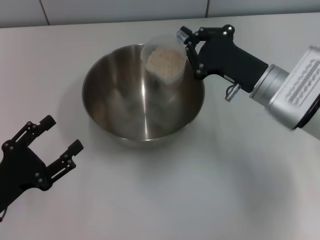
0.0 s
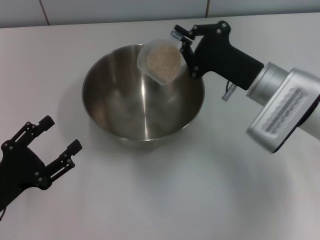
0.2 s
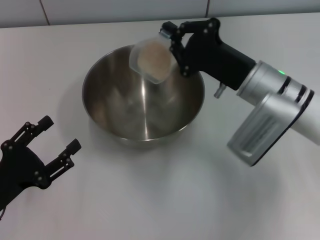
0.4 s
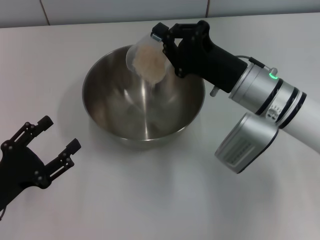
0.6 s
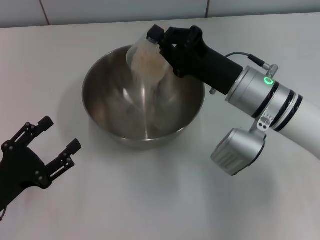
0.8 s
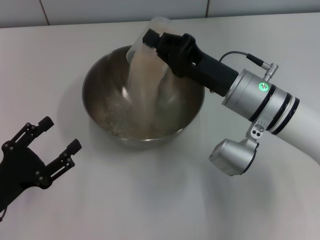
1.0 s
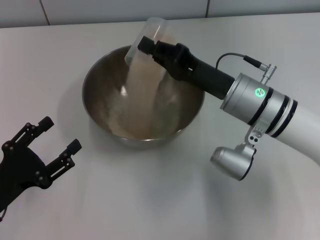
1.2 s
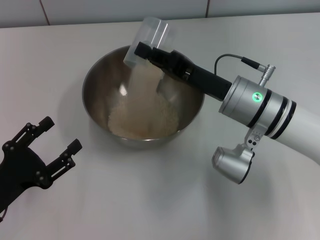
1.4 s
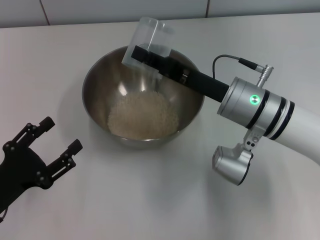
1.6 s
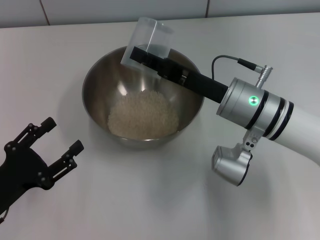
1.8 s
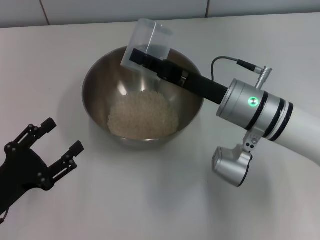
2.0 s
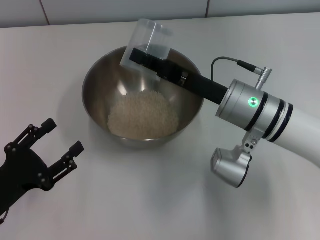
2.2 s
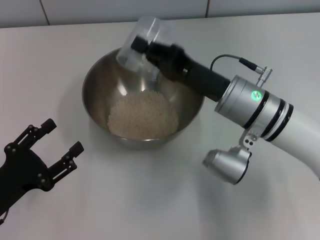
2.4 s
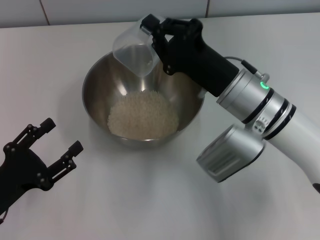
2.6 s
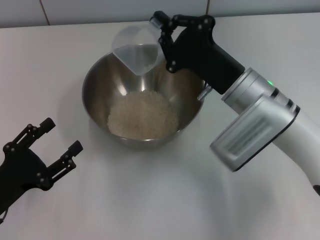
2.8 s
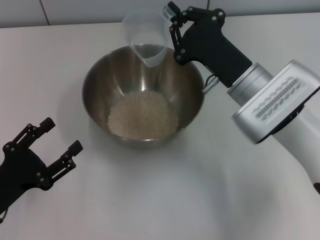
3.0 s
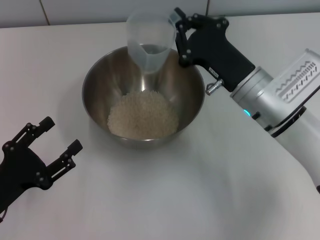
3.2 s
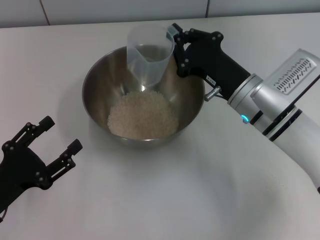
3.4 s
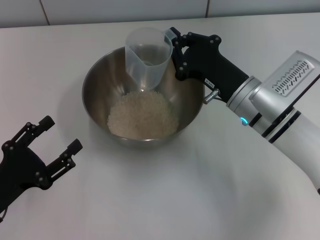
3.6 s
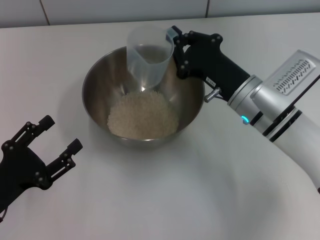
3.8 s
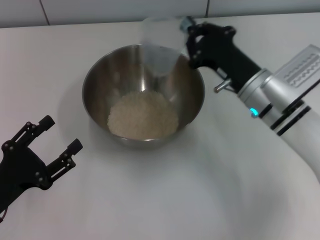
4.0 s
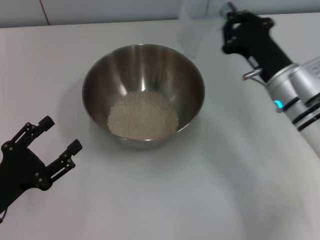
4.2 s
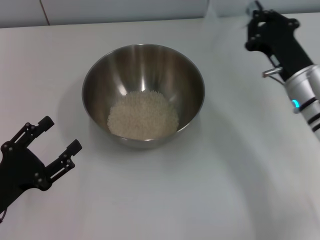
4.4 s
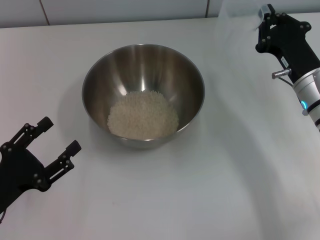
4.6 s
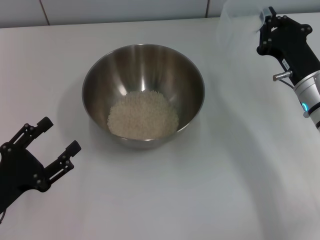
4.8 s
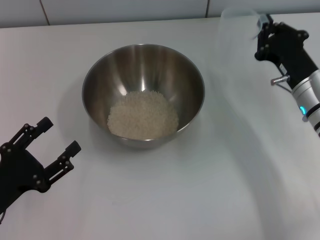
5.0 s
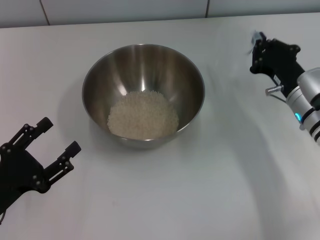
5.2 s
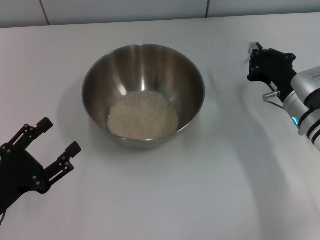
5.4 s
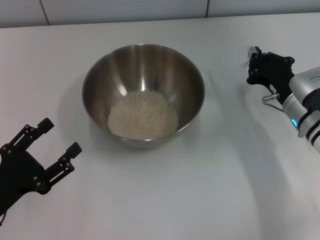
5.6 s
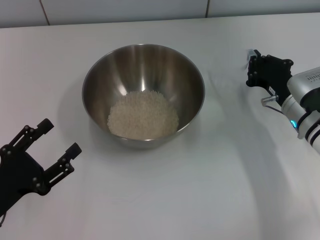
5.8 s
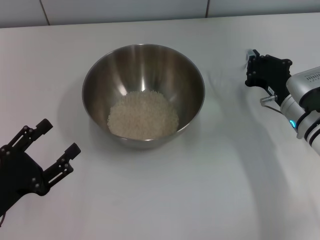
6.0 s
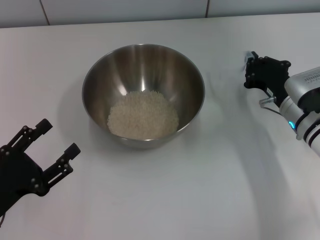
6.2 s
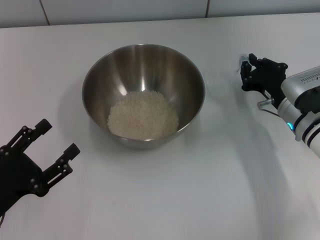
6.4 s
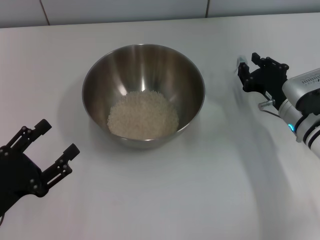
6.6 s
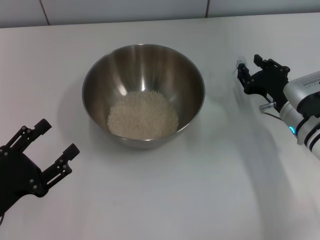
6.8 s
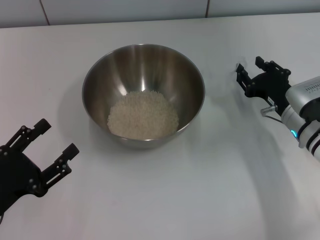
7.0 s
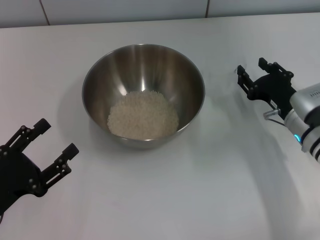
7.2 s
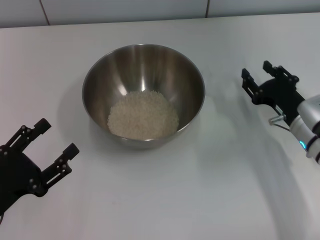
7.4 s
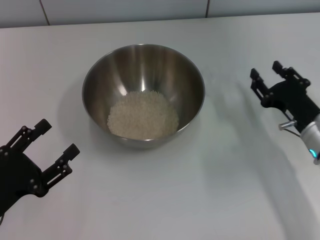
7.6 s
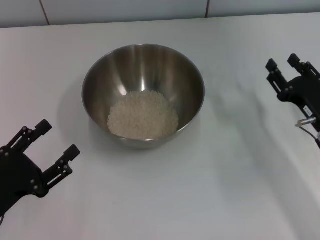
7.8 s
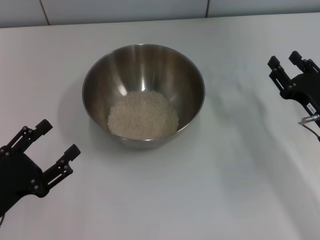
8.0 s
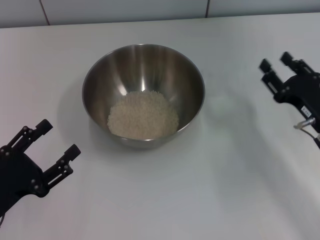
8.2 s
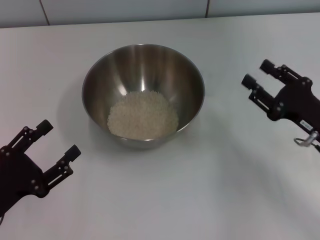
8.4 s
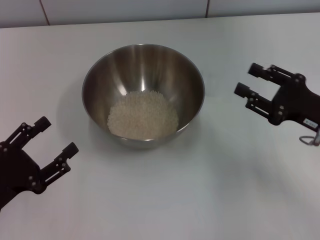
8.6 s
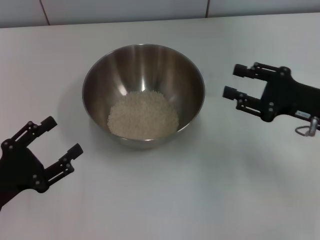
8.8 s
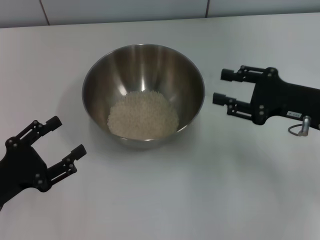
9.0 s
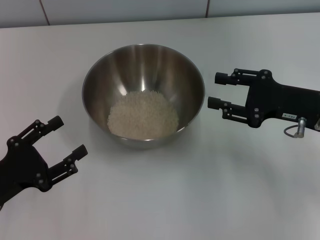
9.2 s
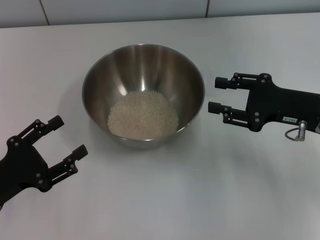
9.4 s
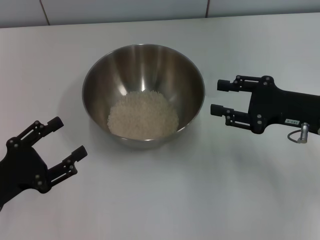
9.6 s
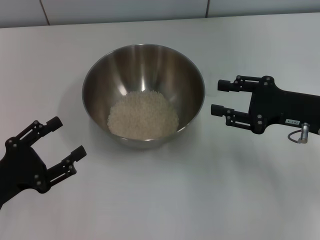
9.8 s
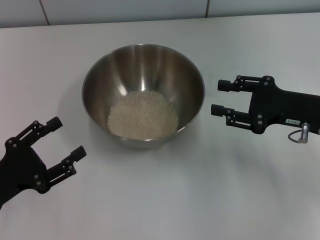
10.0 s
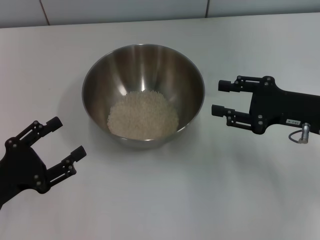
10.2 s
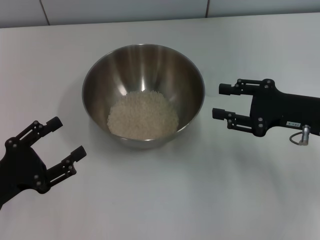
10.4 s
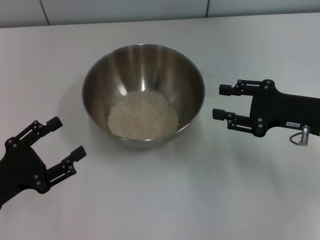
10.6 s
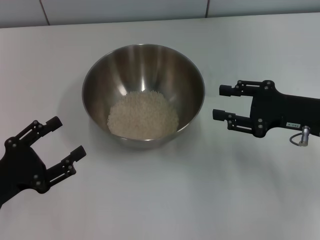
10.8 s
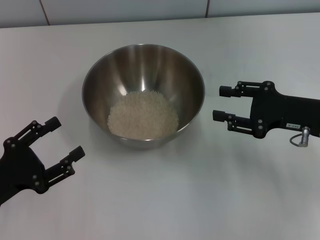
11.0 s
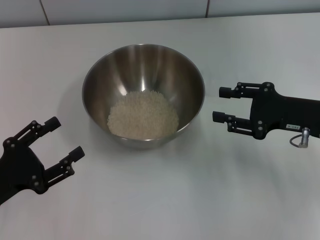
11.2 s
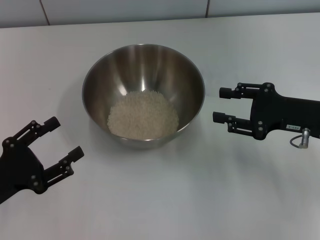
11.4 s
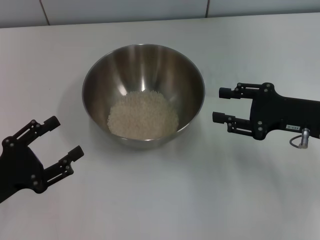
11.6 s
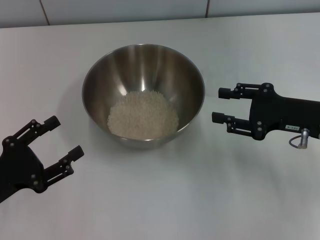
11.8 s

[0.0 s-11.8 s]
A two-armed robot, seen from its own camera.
Task of the whole recording: Place the bowl in the middle of the table with one hand and pour the rice from the grain cup into it with the other hand.
Step, 0.0 to 4.4 s: Pour the rice from the cup into the bowl with the right gripper.
Step, 4.6 to 7.6 s: Place the cup on the table with the right gripper.
0.0 to 1.4 s: The right gripper ends up approximately 5 cm from where it was.
3.0 to 4.4 s: The right gripper shifts some 10 cm to the right.
6.0 to 7.4 s: The right gripper opens its fingers.
7.4 to 8.8 s: The right gripper goes about 5 cm upward.
8.8 to 10.4 s: The grippers stay close to where they were, moving slightly.
10.4 to 11.8 s: Both grippers stay put.
